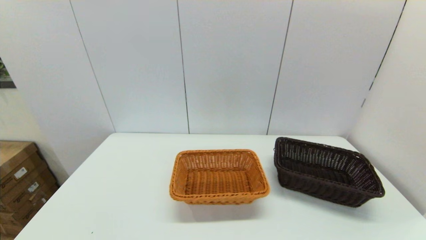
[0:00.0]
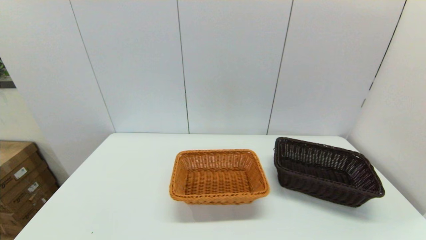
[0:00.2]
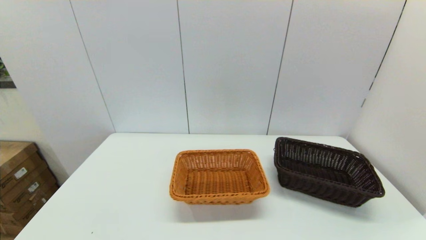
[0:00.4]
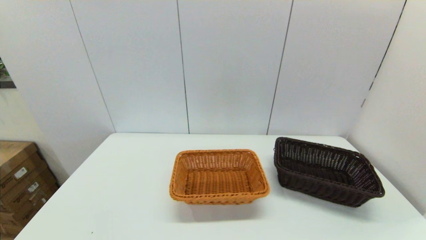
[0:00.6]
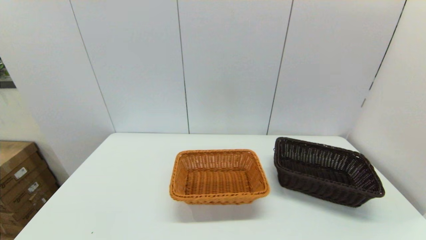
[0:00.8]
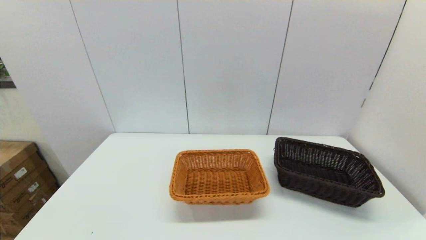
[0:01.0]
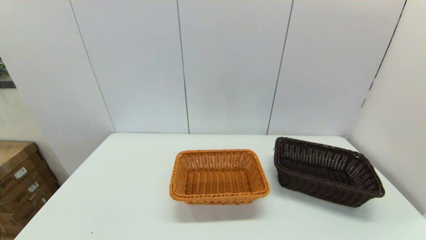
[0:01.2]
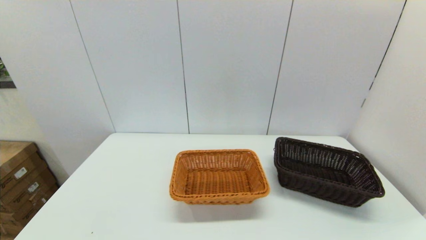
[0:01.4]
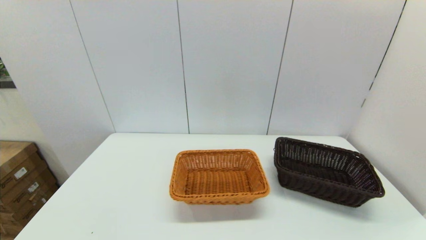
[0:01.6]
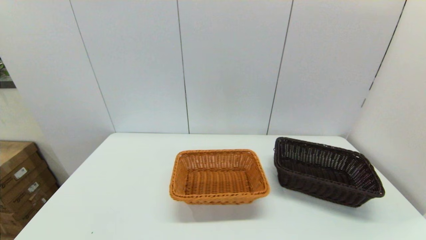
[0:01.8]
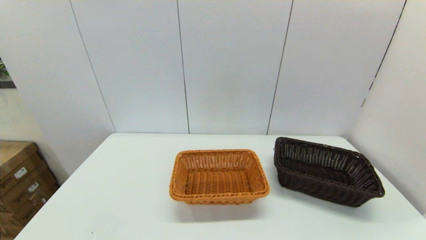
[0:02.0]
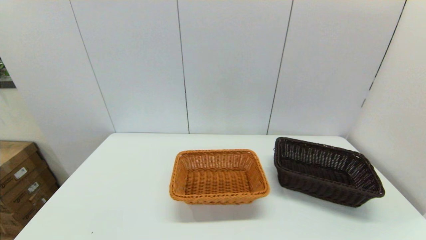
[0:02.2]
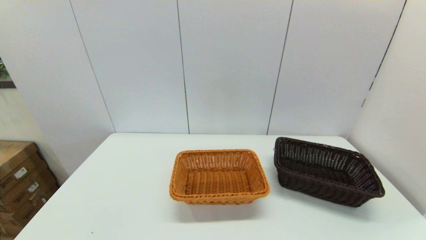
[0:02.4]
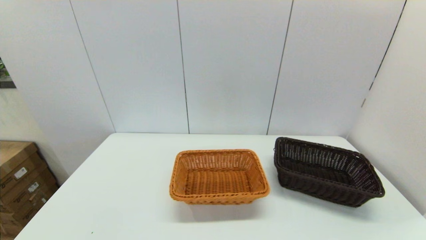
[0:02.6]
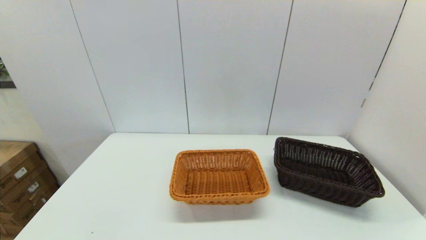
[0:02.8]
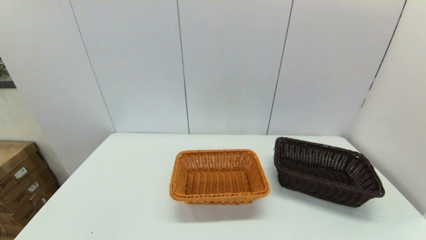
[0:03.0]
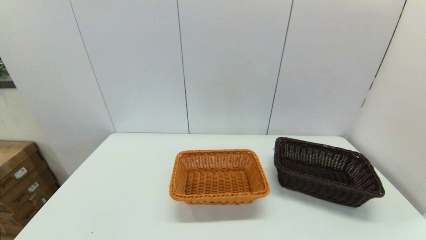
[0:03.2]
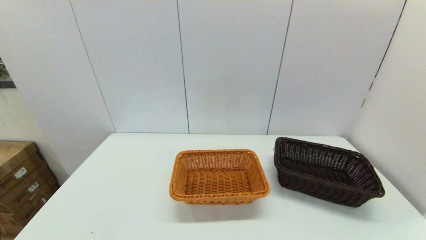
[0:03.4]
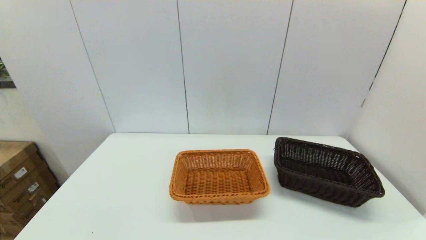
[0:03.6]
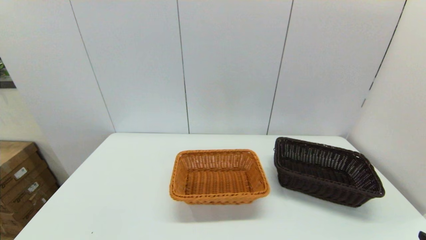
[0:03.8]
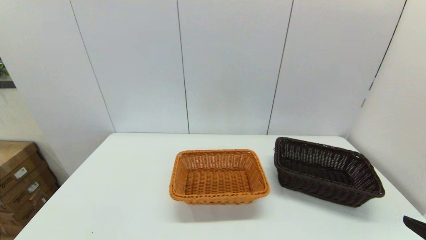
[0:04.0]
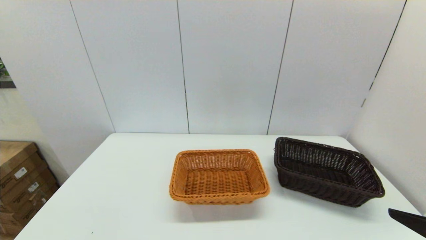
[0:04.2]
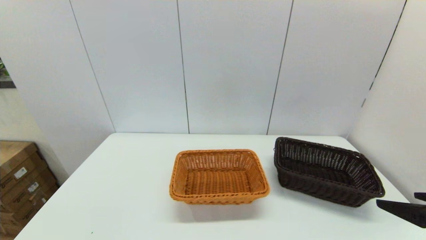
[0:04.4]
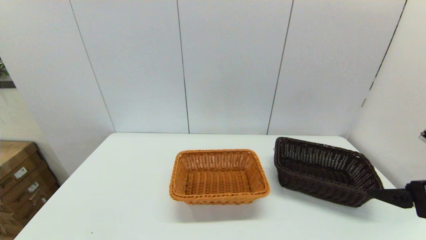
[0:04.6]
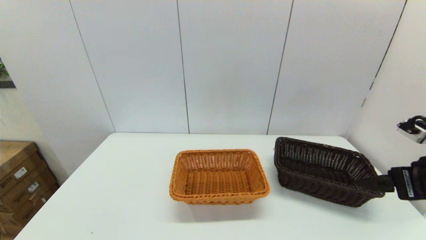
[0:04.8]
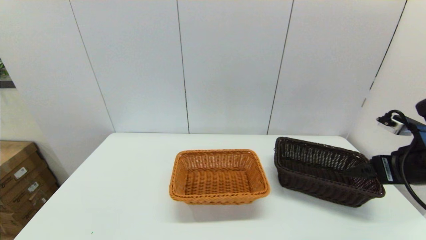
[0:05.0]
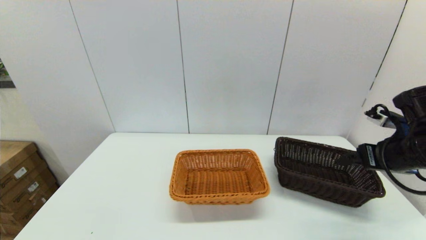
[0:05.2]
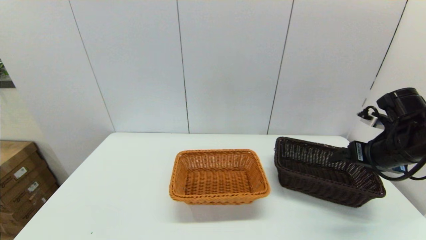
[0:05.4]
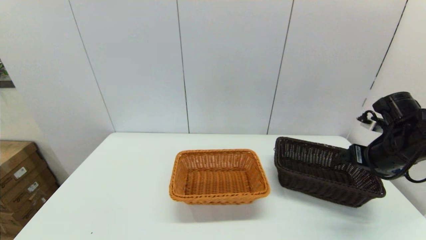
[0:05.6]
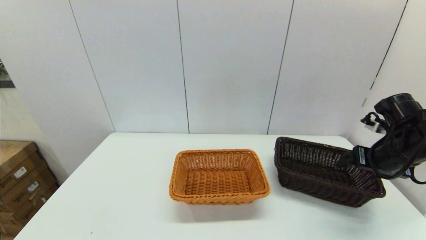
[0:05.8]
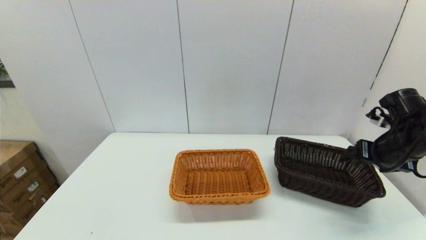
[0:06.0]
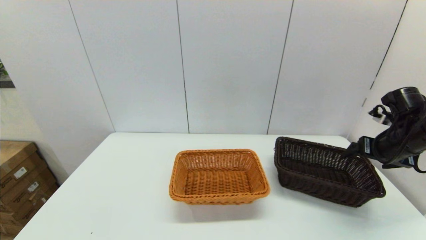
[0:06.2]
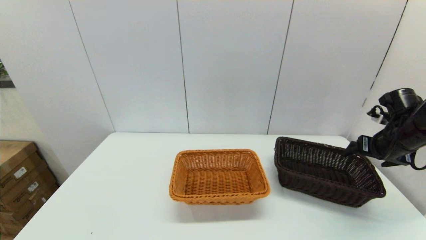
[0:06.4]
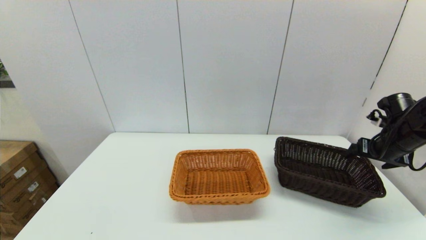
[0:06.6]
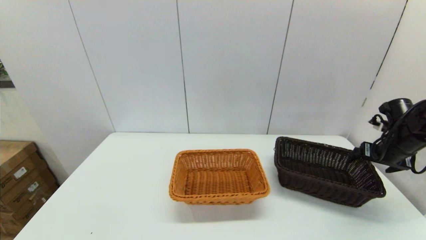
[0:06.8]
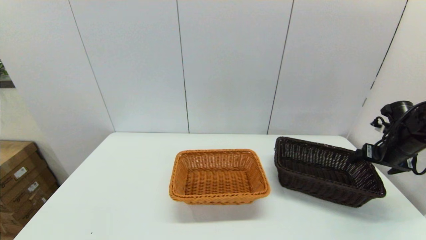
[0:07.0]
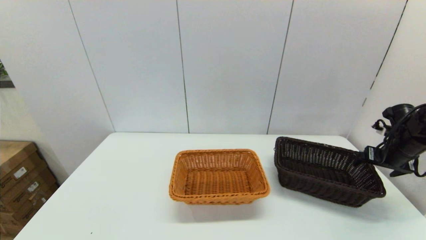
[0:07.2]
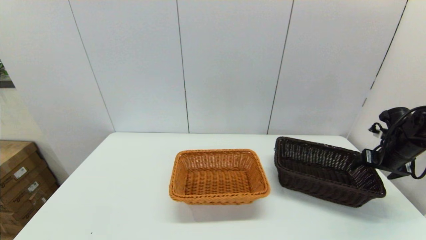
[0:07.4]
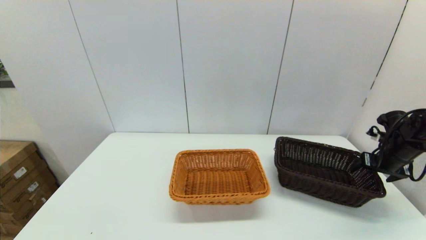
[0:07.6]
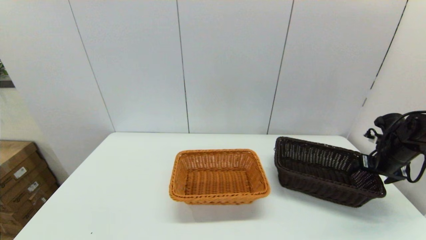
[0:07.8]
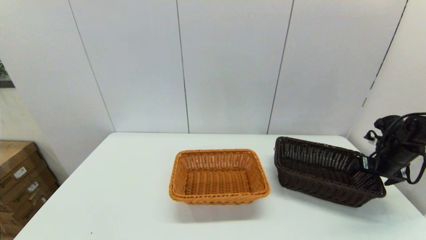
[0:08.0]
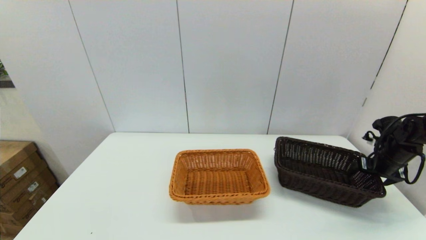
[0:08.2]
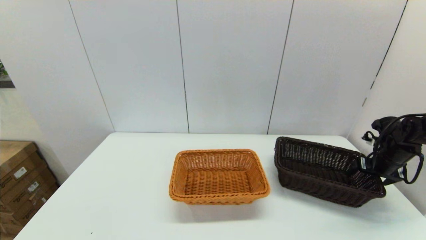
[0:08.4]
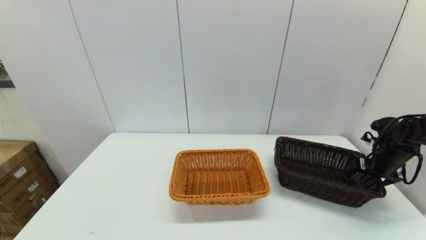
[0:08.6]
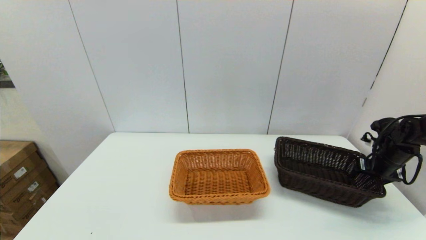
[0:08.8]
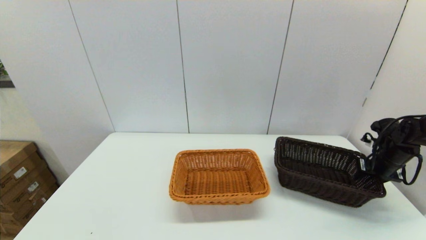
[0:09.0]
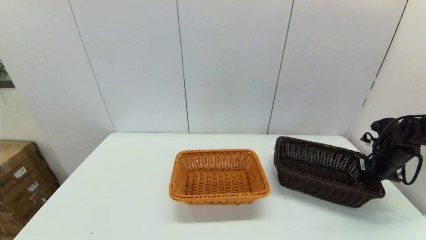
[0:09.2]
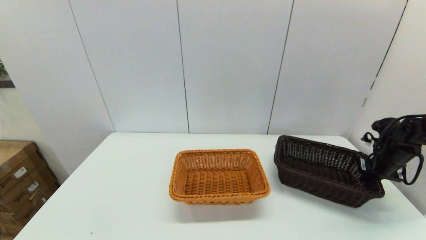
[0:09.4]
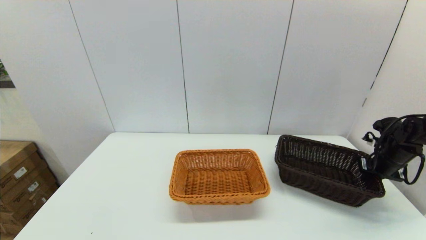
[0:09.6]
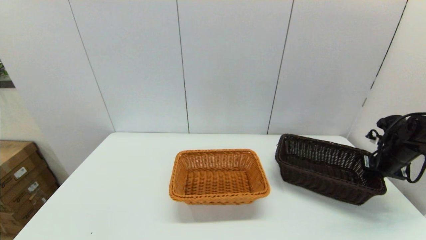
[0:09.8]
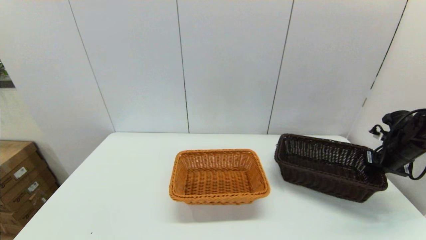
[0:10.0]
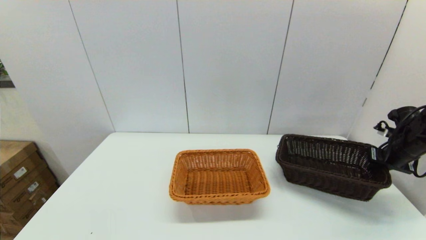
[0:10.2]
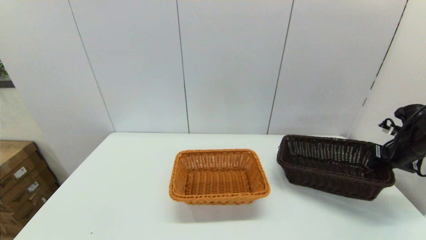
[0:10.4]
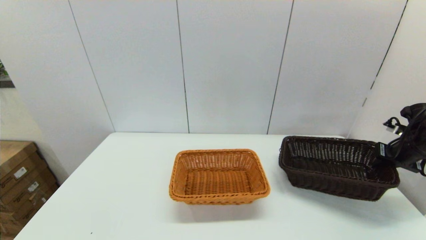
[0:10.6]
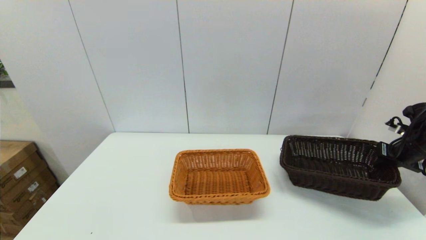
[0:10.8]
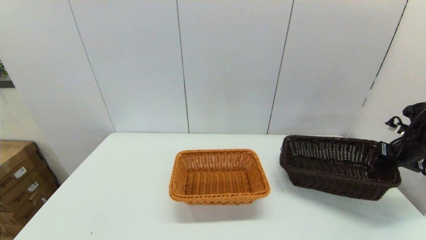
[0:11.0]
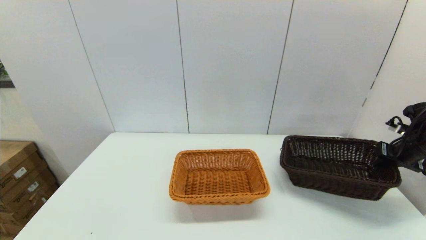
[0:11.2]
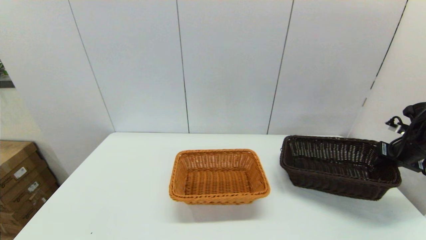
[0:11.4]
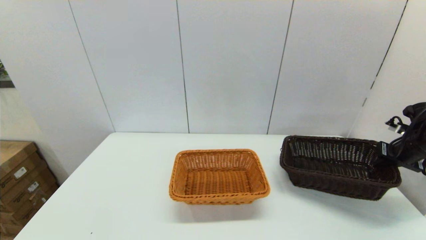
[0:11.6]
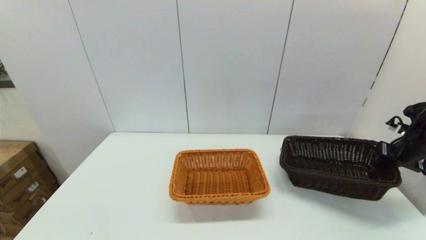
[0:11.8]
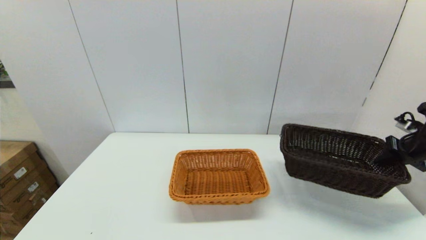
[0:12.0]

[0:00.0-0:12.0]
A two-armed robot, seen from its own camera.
Task of the whole recording: stack a basket on top of another basket.
Step, 0.0 to 8.8 s: Grasp the dark basket with the right gripper.
3.0 to 4.4 s: The right gripper heads forward and upward, covering about 20 cm.
4.4 to 6.0 s: The right gripper goes roughly 20 cm forward.
6.0 to 7.6 s: The right gripper travels to the right, downward and forward by roughly 15 cm.
7.6 to 9.0 s: The right gripper closes up.
9.0 to 10.4 s: The right gripper goes about 5 cm upward, and closes.
10.4 to 12.0 s: The grippers make only small movements.

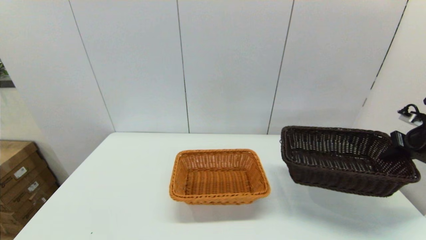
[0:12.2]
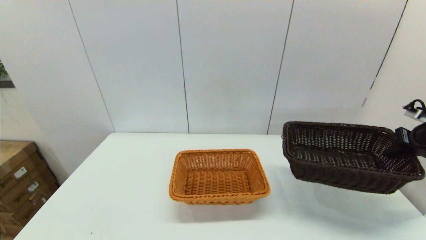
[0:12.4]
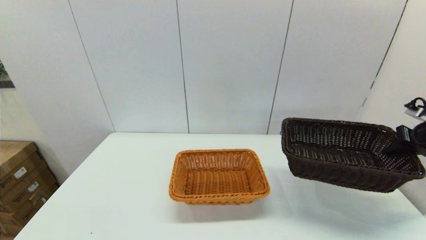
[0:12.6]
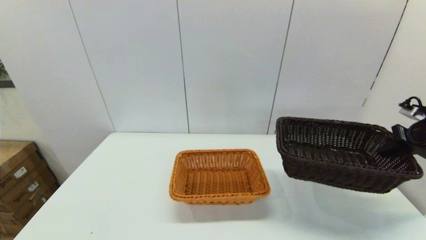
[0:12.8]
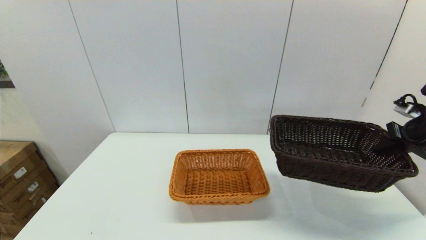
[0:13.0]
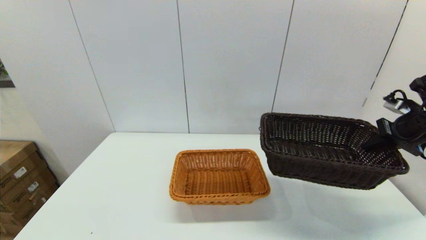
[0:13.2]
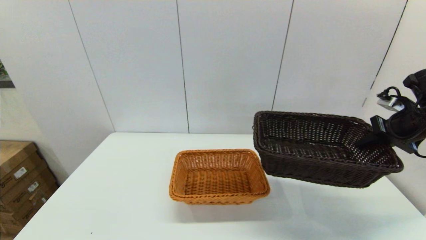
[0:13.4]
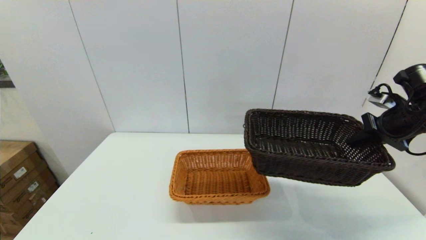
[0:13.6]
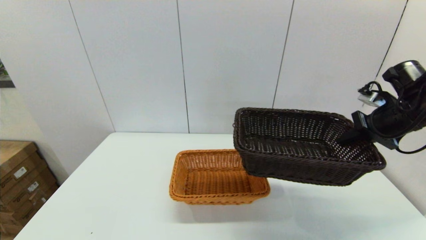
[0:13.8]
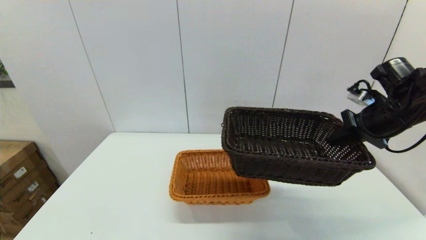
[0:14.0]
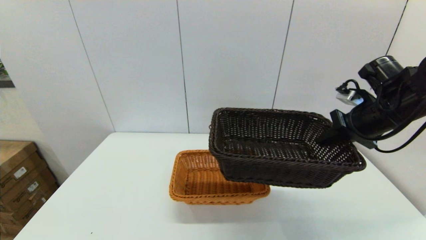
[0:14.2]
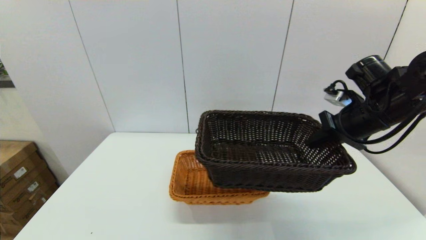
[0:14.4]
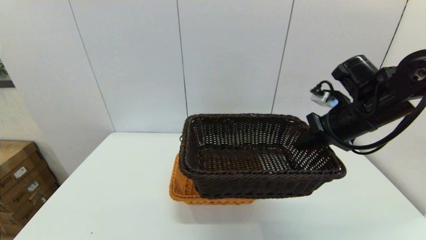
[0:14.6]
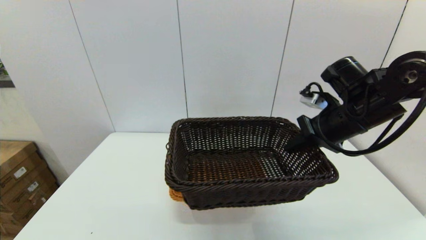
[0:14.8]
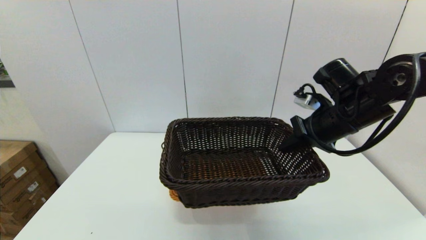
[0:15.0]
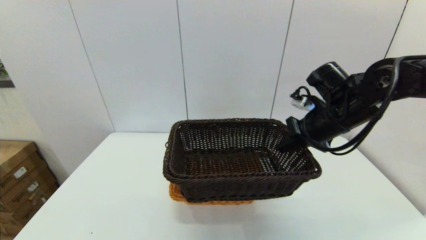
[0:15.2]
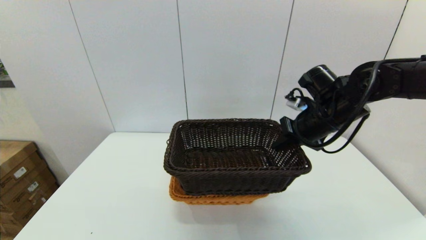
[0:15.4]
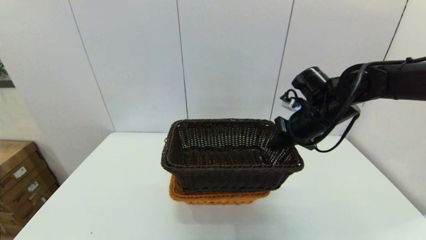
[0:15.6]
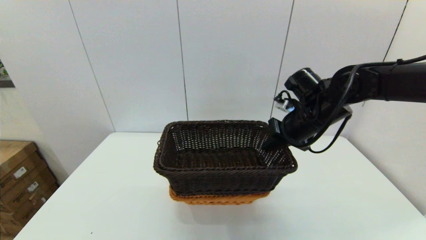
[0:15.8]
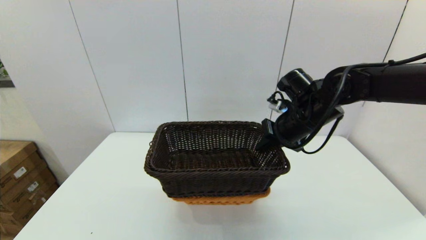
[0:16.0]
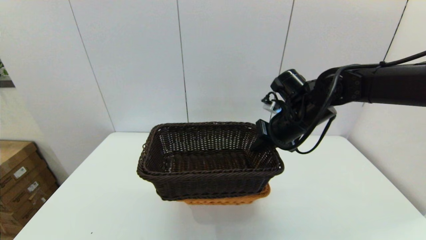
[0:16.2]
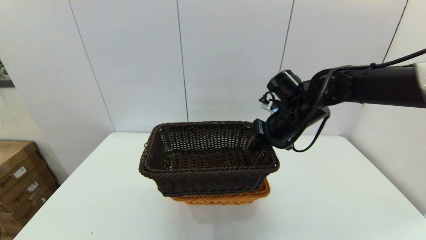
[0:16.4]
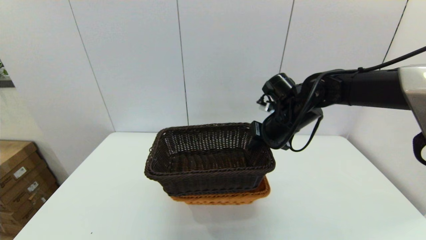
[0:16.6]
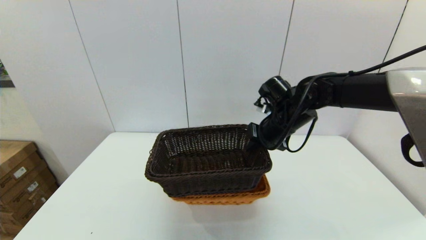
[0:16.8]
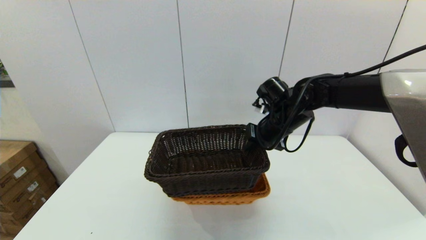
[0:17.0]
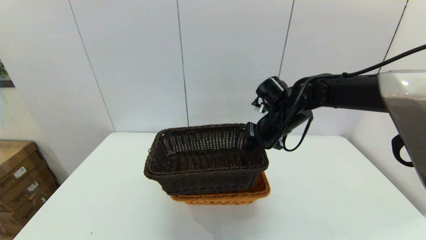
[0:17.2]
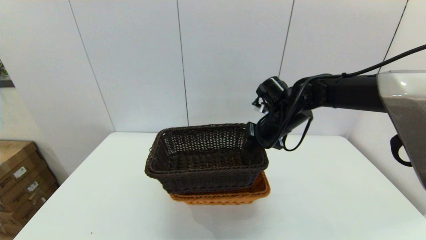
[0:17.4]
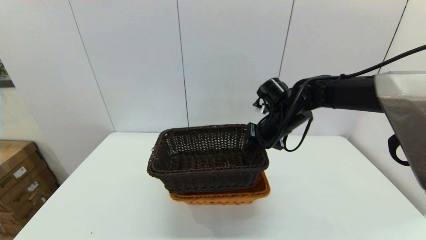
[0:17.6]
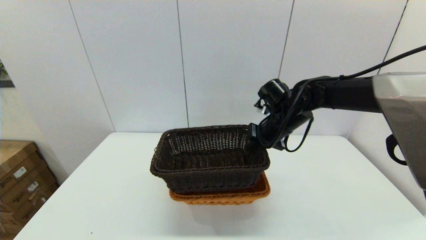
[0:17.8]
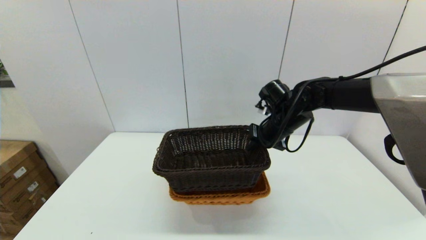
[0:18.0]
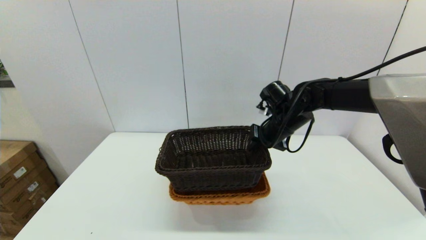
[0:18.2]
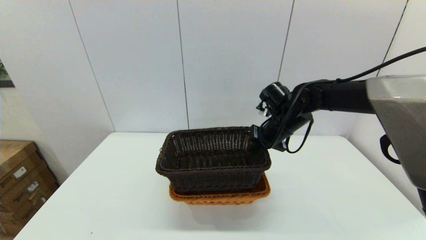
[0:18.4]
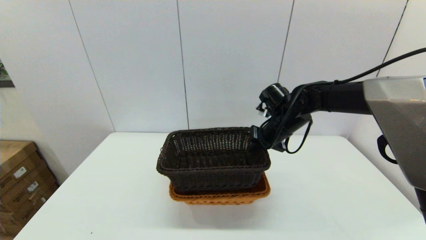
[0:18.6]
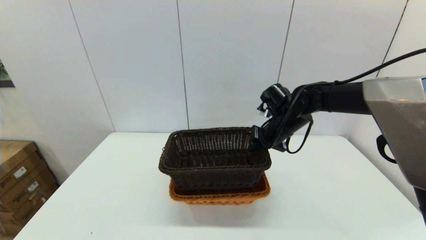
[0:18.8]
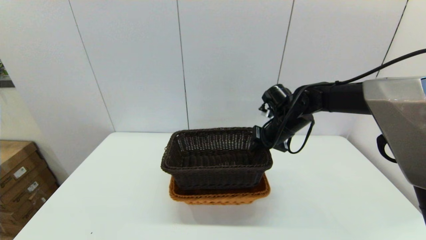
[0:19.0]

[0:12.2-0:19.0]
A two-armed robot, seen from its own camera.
Task of the whole recording: stack a basket on top of another basket.
12.2 to 13.6 s: The right gripper is displaced to the left by roughly 10 cm.
13.6 to 15.0 s: The right gripper goes some 15 cm to the left.
15.0 to 16.2 s: The right gripper moves to the left, approximately 5 cm.
16.2 to 17.6 s: The grippers make only small movements.
17.6 to 19.0 s: The grippers make only small movements.
